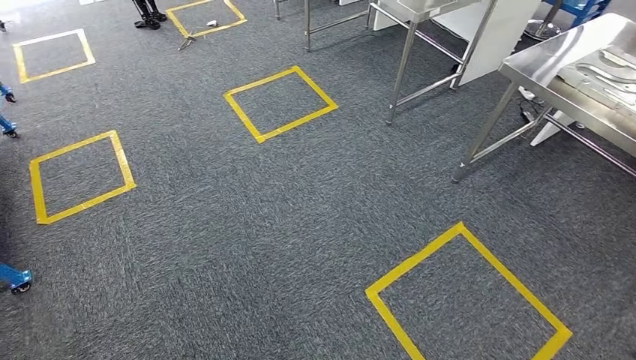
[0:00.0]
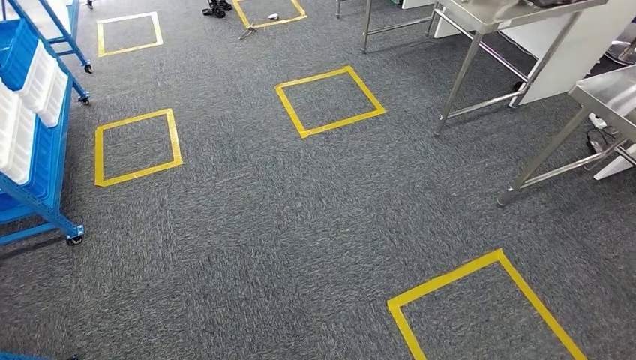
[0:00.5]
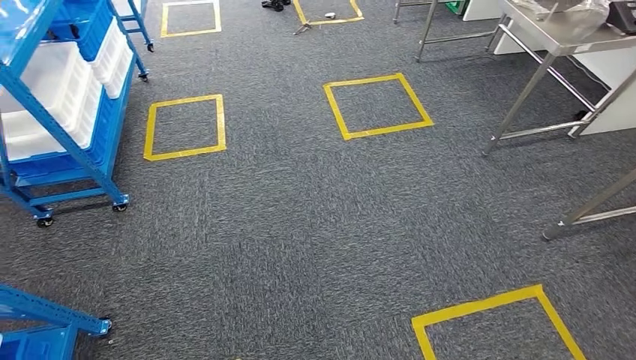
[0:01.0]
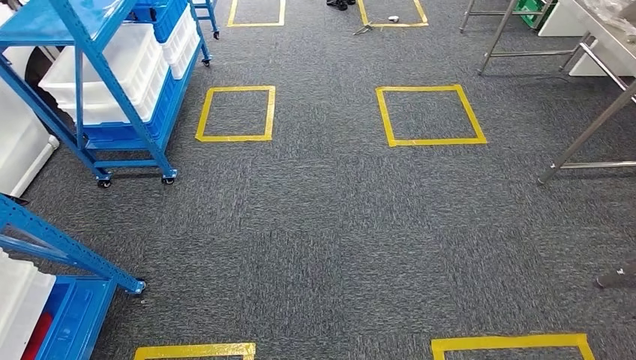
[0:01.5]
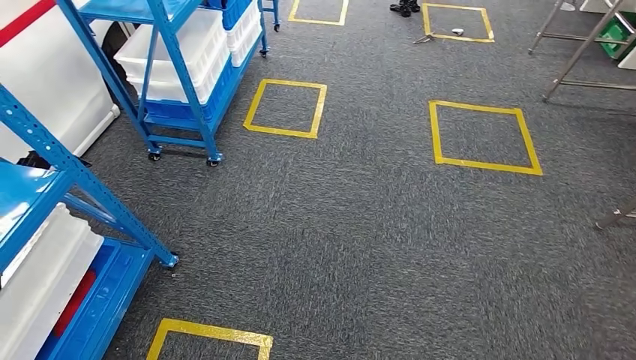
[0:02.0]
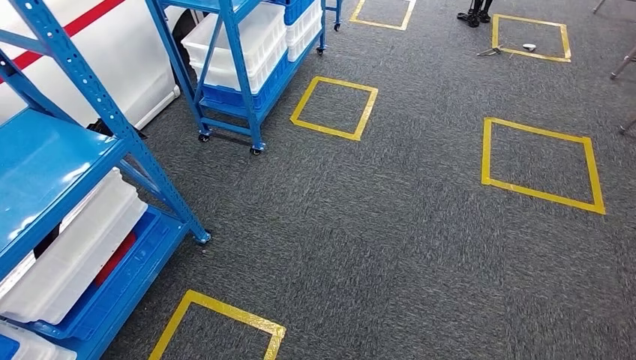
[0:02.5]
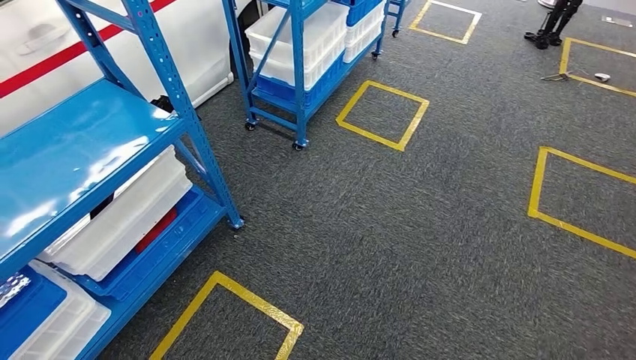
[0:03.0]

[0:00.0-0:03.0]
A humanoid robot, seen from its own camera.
Step, 0:00.0 to 0:03.0: Return to the initial position at the shelf.
